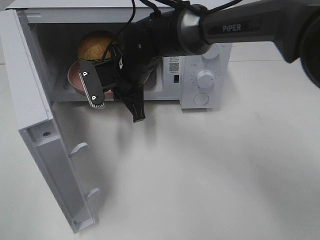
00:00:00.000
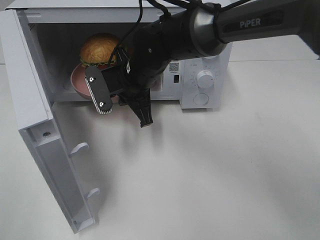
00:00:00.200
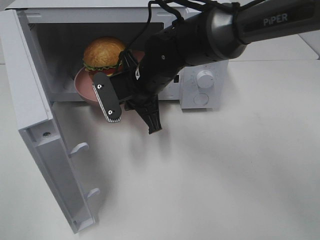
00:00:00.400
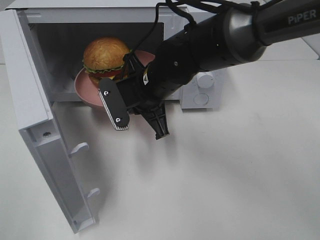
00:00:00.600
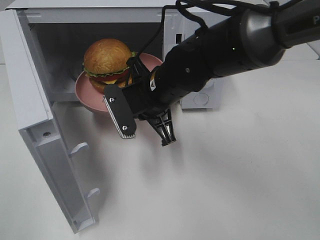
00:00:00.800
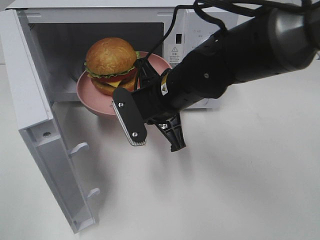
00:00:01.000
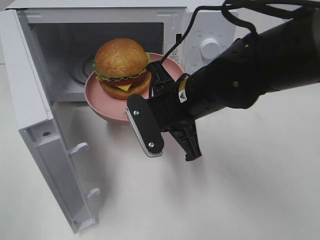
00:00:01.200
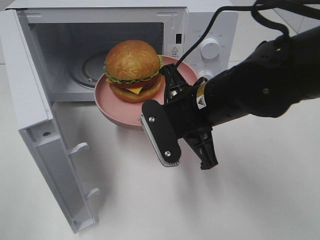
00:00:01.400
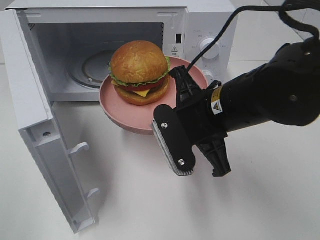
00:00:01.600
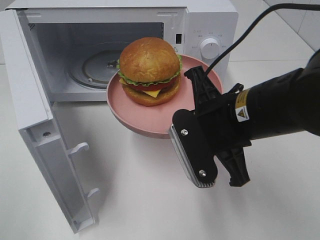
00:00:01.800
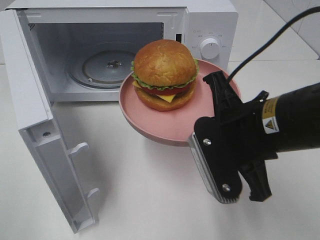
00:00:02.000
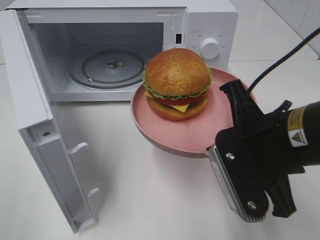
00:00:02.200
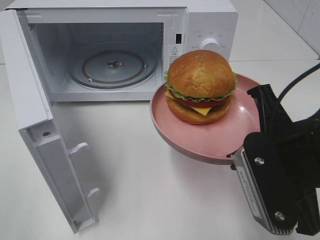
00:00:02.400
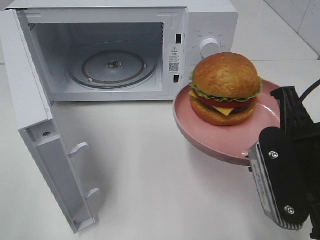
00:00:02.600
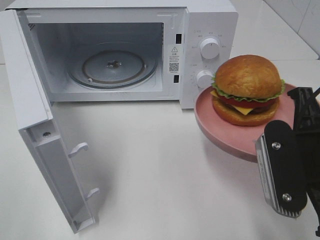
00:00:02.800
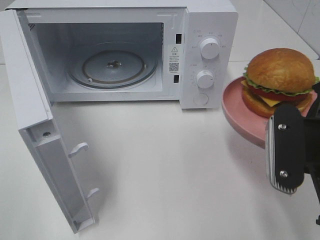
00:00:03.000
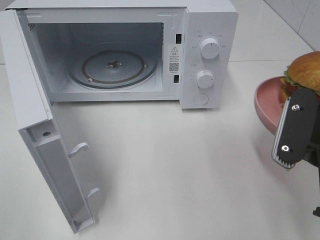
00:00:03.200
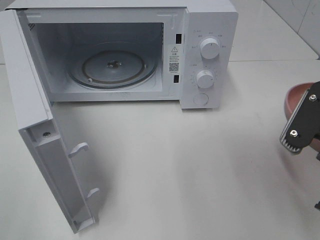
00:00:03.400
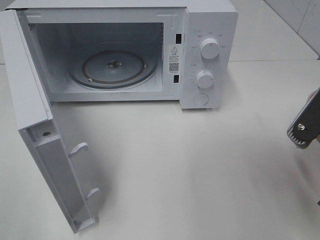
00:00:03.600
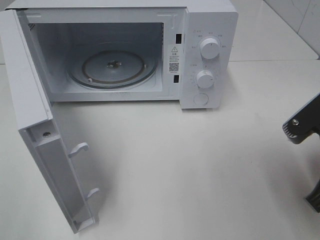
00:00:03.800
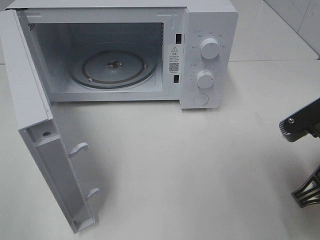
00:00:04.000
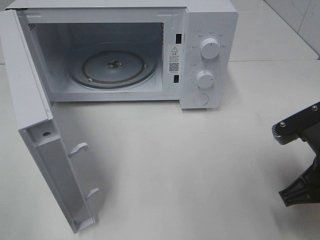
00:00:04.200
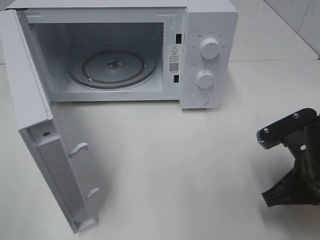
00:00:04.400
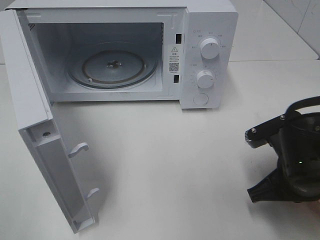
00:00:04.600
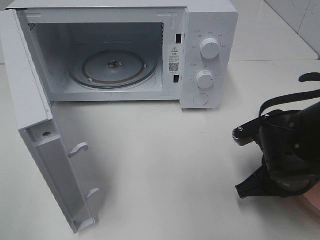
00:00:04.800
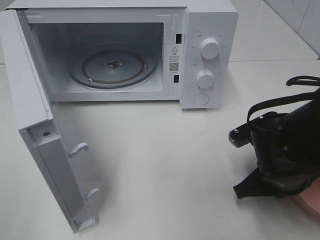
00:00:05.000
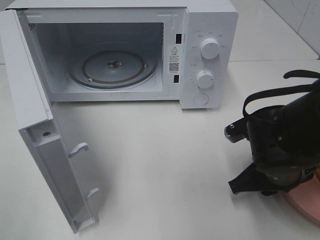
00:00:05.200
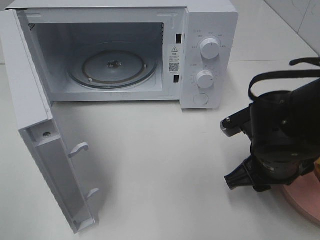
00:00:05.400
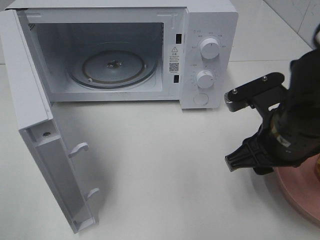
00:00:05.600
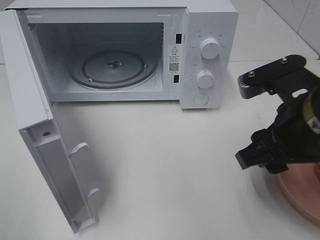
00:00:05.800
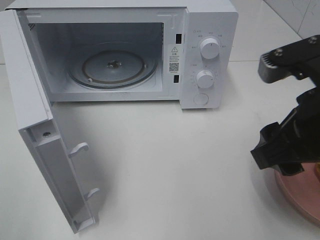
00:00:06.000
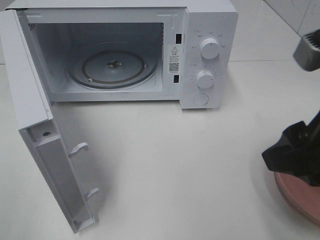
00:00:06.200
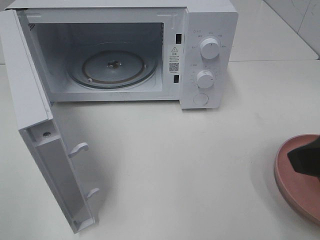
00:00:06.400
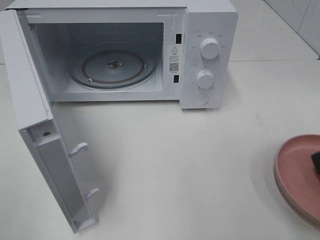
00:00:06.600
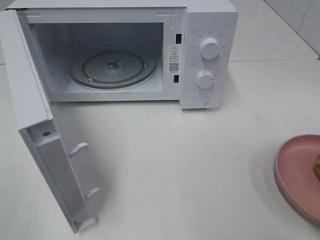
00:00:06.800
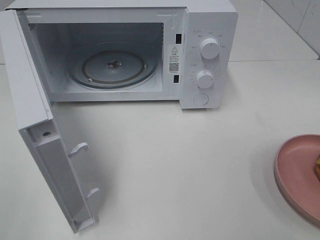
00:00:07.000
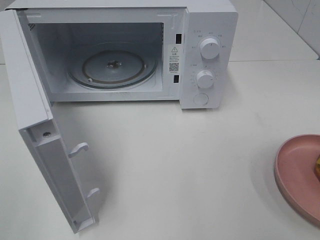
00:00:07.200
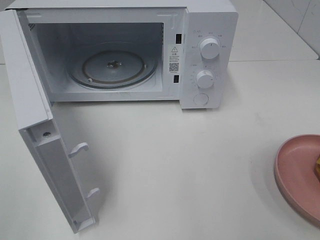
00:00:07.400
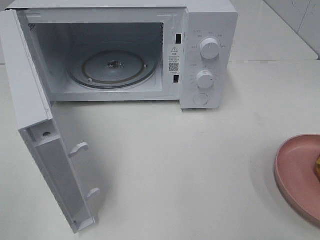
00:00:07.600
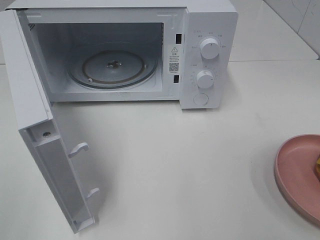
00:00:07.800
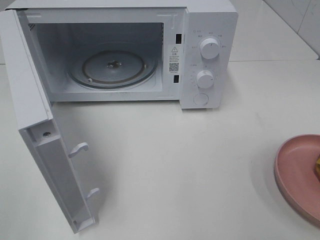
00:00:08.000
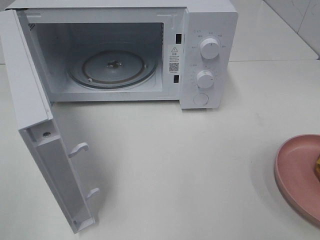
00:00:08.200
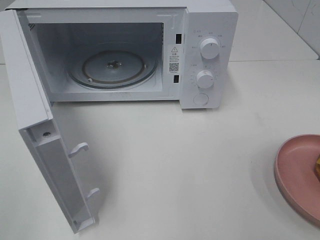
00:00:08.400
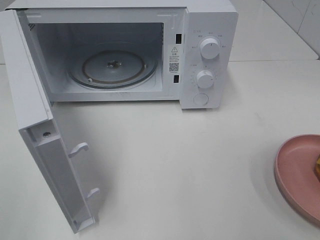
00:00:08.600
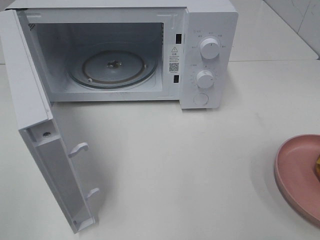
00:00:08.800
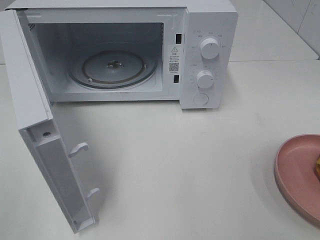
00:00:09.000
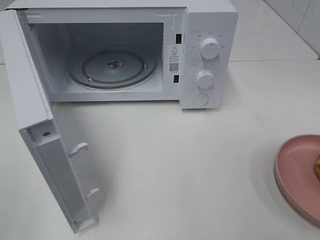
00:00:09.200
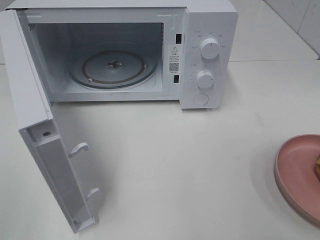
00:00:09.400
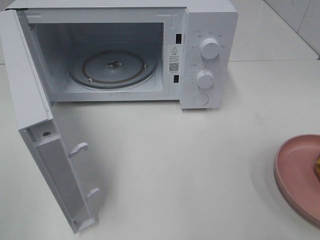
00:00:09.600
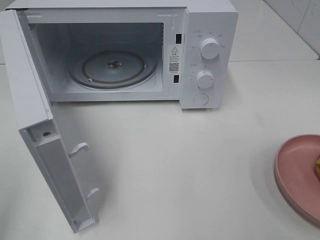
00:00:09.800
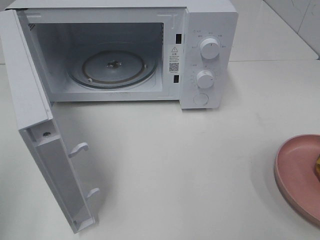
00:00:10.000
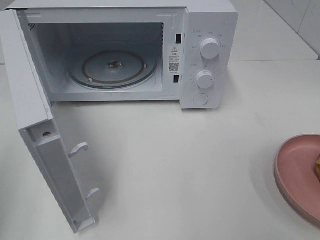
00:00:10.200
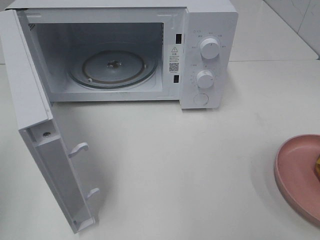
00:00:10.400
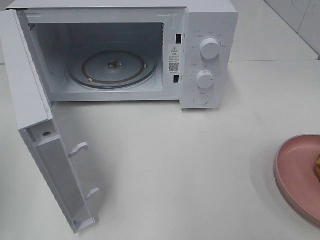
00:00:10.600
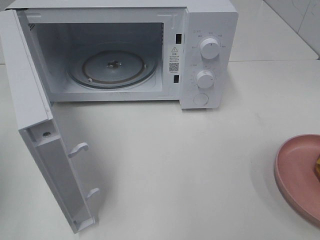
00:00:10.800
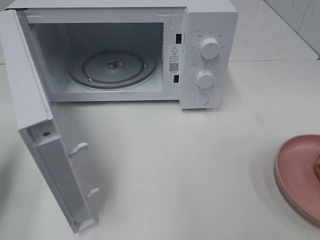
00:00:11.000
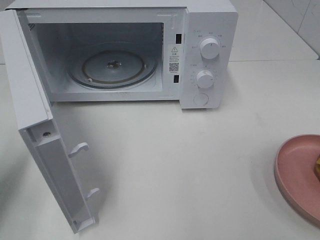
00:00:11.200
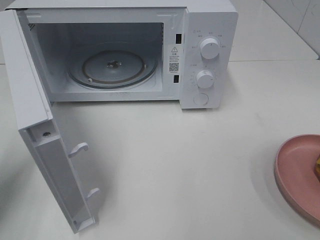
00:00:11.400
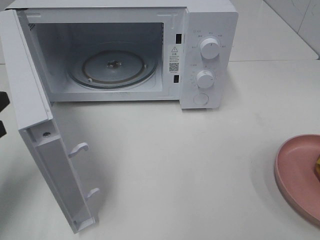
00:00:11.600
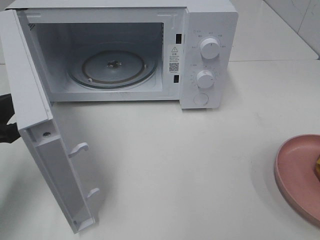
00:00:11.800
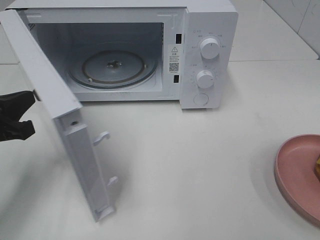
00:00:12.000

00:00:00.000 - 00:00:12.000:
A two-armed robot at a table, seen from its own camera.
Task of the whole recording: Heat the burger.
Step, 00:00:00.000 - 00:00:05.200: Right hand: place the plate on the table.
00:00:00.000 - 00:00:01.600: The right gripper is displaced backward and to the right by approximately 20 cm.
00:00:01.600 - 00:00:03.000: The right gripper travels to the right and backward by about 15 cm.
00:00:03.000 - 00:00:04.400: The right gripper travels downward by roughly 10 cm.
00:00:04.400 - 00:00:06.000: The right gripper shifts roughly 15 cm upward, and opens.
00:00:06.000 - 00:00:07.600: The right gripper moves backward and to the right, roughly 20 cm.
00:00:07.600 - 00:00:09.000: Both grippers stay about where they are.
00:00:10.400 - 00:00:12.000: The left gripper shifts some 15 cm forward, downward and to the right.

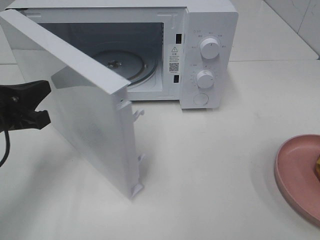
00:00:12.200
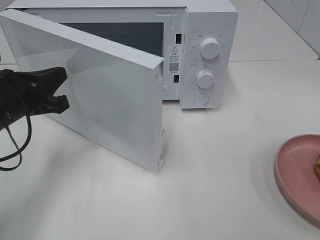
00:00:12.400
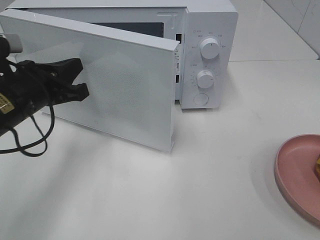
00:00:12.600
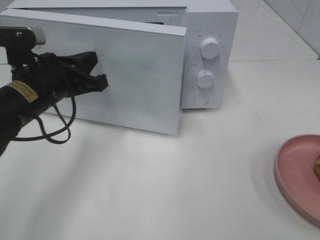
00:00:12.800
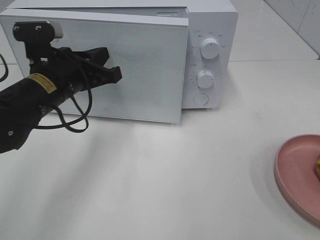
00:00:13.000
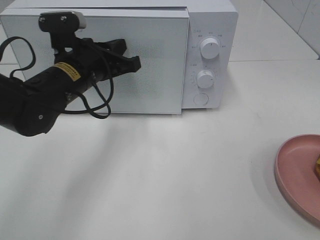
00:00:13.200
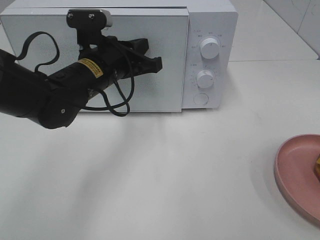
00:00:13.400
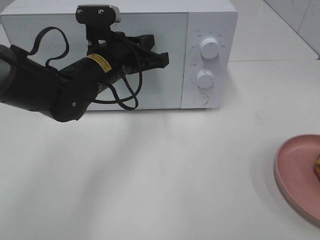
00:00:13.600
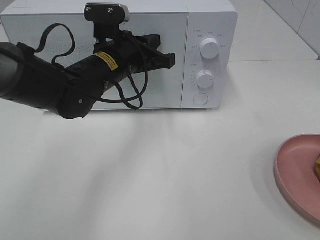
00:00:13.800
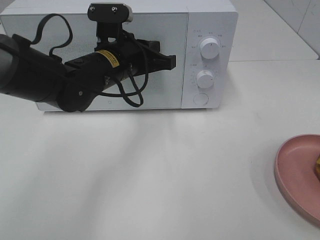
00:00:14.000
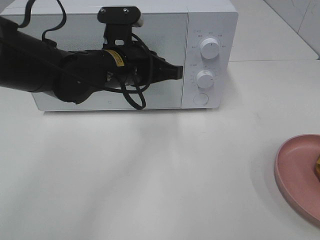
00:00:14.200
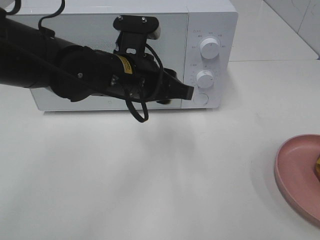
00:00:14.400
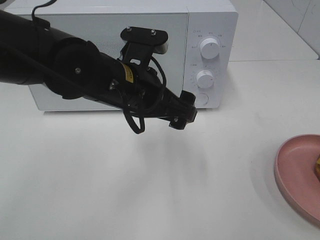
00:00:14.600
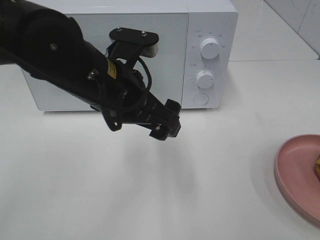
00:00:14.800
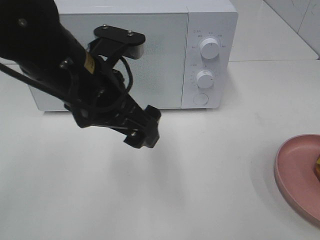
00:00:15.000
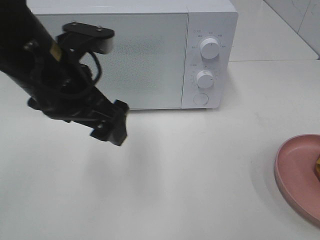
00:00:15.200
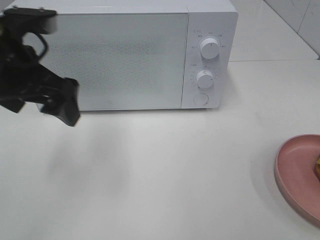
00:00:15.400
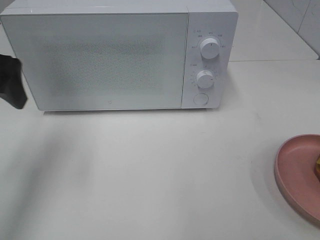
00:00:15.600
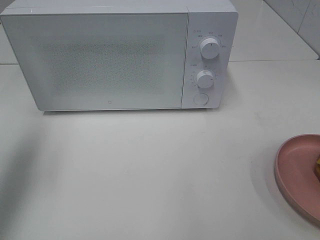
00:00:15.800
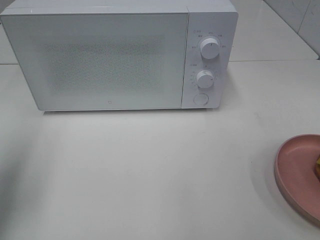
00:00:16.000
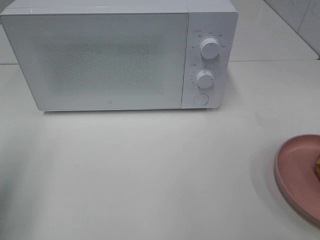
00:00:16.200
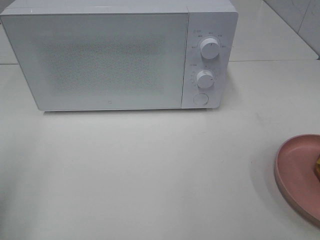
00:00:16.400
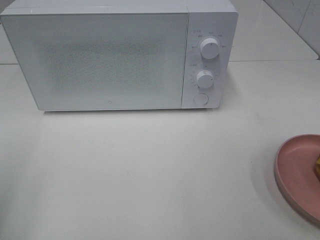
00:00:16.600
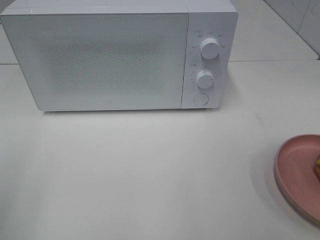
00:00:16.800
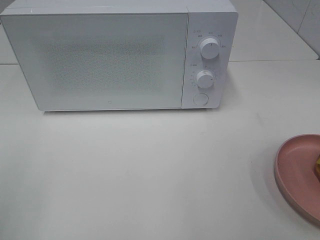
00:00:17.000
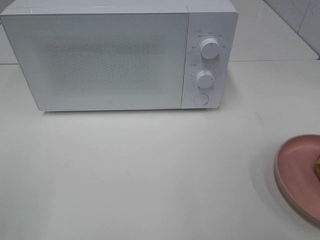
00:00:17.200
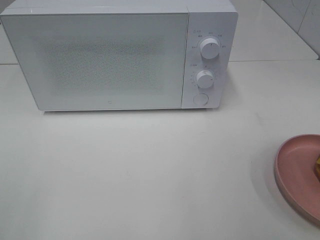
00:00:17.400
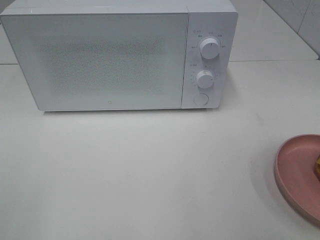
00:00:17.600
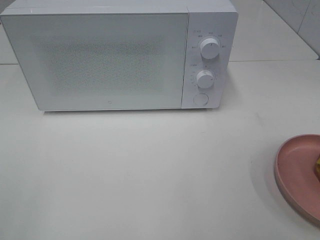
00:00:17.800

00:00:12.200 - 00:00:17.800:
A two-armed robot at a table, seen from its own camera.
Task of the whole recording: Heat the burger.
Step, 00:00:12.200 - 00:00:14.200: Left hand: close the microwave door.
00:00:12.200 - 00:00:13.600: The left gripper goes some 20 cm to the right and forward.
00:00:13.600 - 00:00:15.000: The left gripper goes roughly 15 cm backward and upward, and opens.
00:00:15.000 - 00:00:16.400: The left gripper is displaced to the left and backward by about 25 cm.

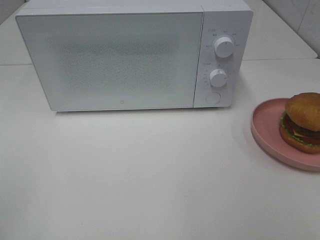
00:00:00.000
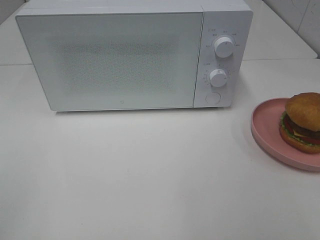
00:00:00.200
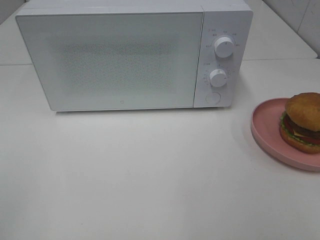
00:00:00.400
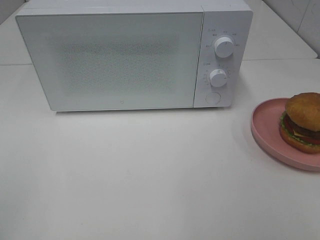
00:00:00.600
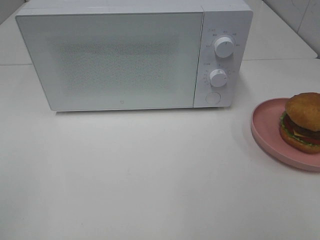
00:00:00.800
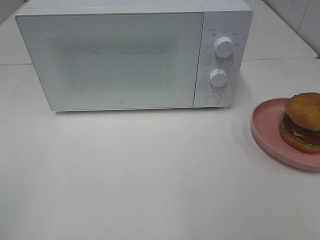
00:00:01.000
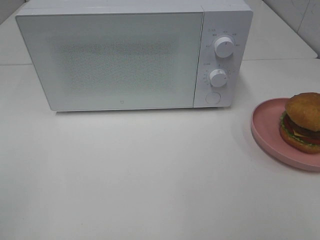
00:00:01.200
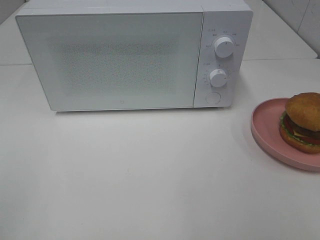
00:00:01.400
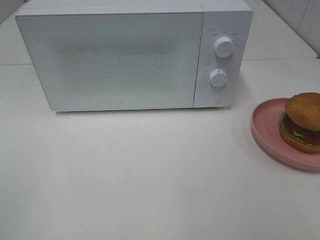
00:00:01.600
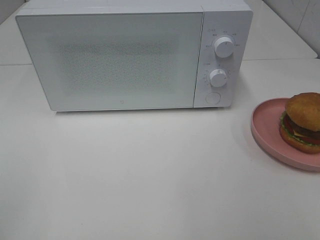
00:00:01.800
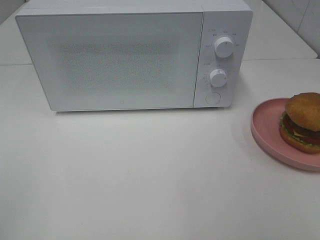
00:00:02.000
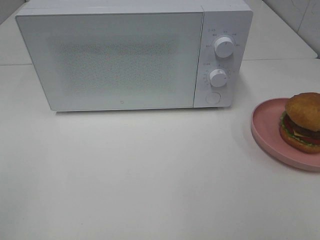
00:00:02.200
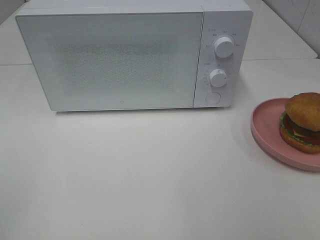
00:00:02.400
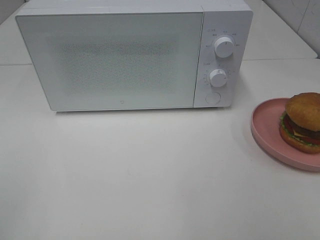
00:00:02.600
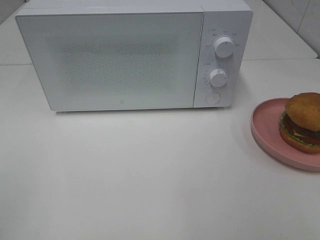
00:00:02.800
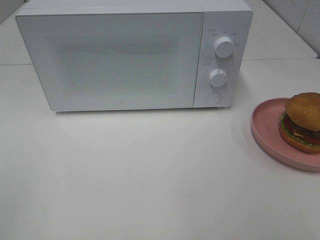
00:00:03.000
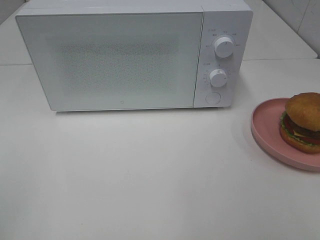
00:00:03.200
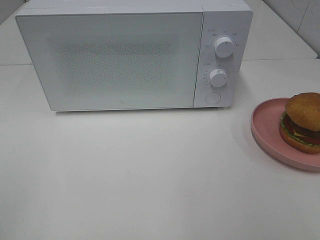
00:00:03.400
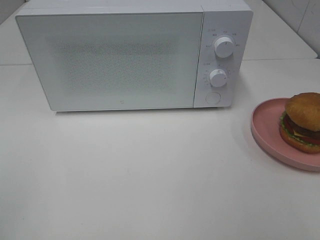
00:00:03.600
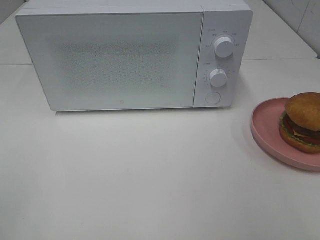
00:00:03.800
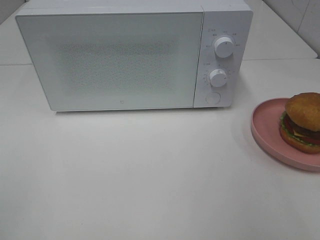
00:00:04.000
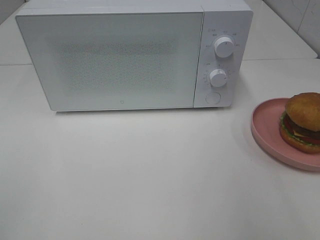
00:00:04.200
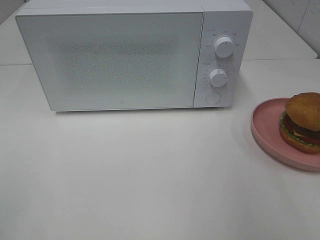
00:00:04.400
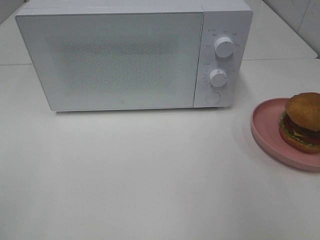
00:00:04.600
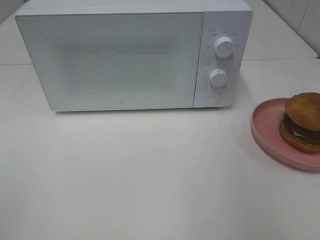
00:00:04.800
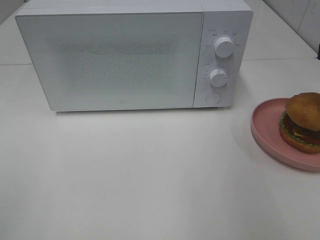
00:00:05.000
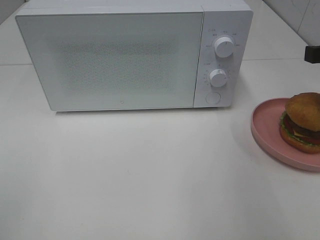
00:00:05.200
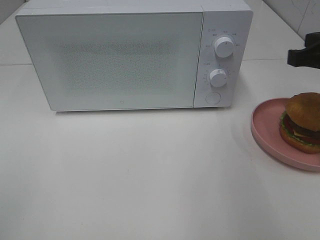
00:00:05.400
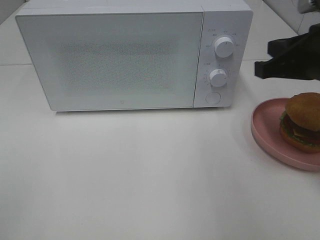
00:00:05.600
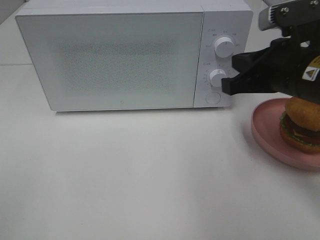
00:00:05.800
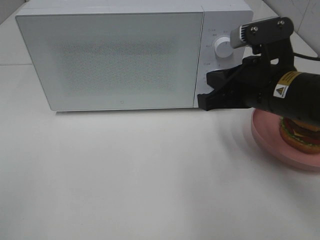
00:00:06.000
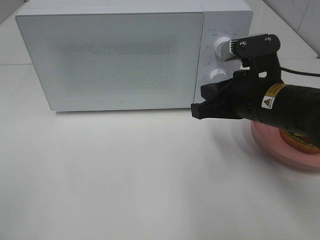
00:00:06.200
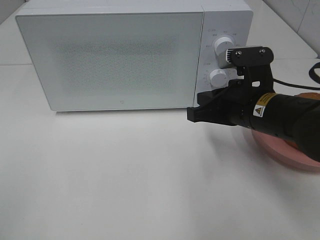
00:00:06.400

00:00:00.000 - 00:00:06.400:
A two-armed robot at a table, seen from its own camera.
Task of the whole recording: Heat the burger.
00:00:00.000 - 00:00:03.200: Neither gripper changes place.
00:00:04.800 - 00:00:06.400: The right gripper goes about 20 cm to the left and downward, and closes.
